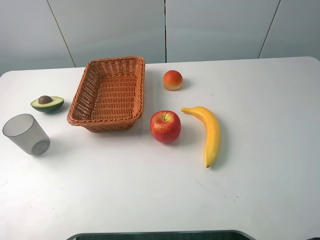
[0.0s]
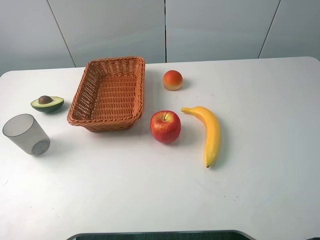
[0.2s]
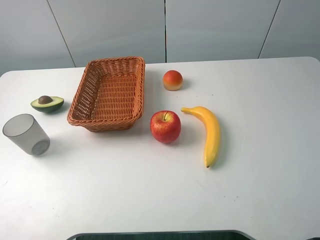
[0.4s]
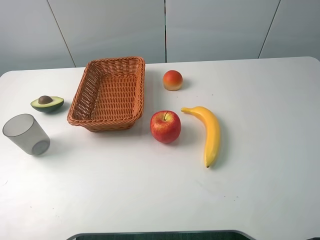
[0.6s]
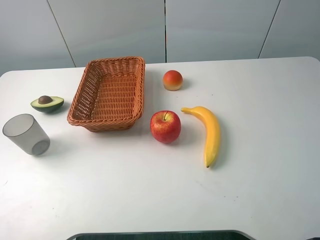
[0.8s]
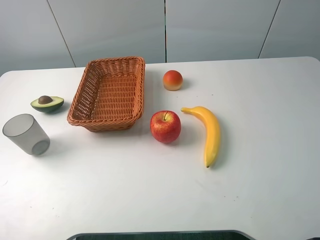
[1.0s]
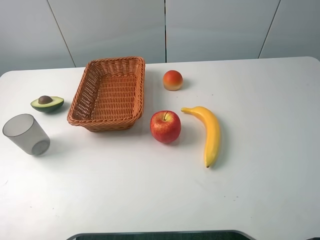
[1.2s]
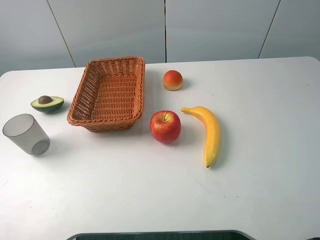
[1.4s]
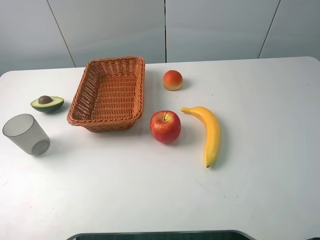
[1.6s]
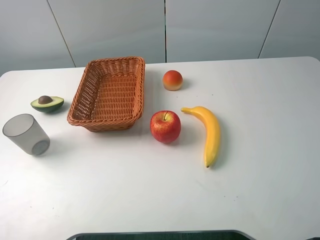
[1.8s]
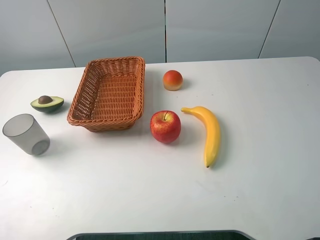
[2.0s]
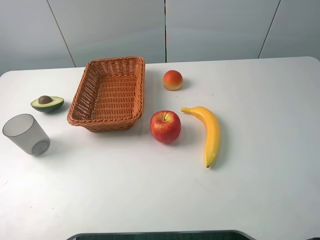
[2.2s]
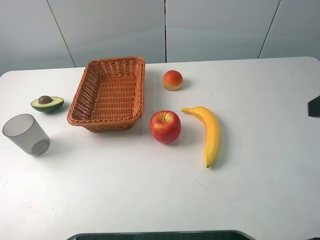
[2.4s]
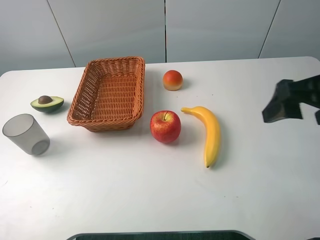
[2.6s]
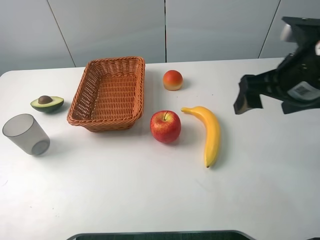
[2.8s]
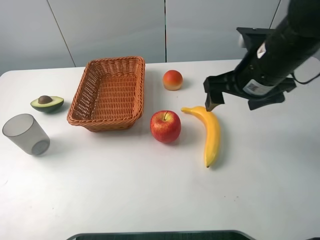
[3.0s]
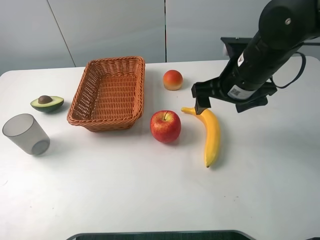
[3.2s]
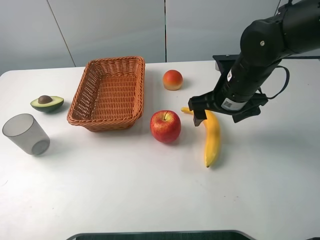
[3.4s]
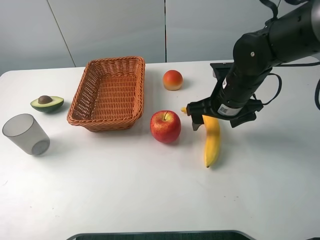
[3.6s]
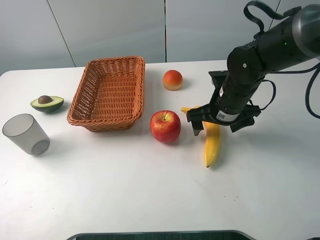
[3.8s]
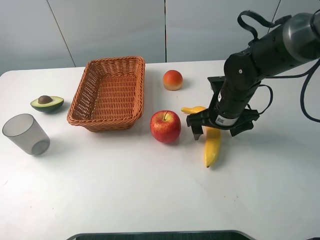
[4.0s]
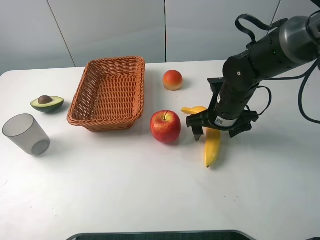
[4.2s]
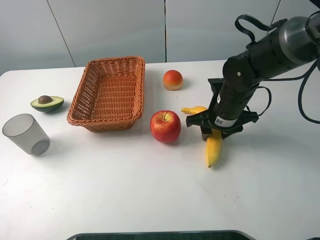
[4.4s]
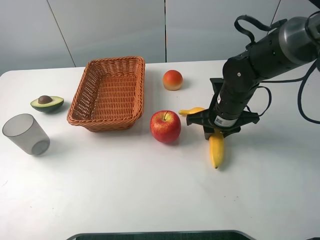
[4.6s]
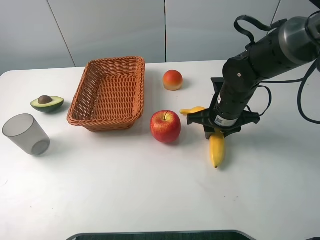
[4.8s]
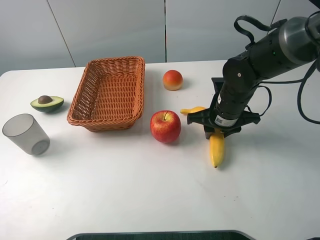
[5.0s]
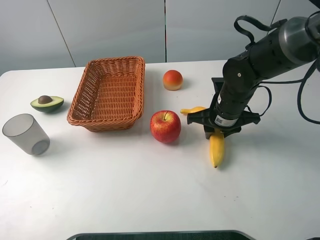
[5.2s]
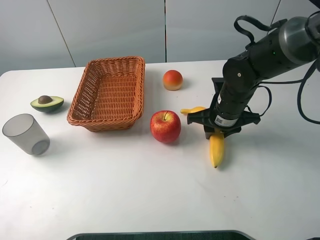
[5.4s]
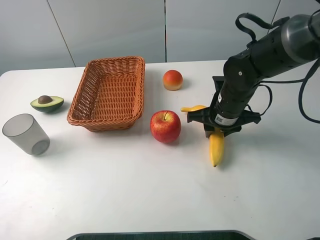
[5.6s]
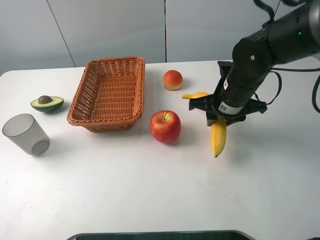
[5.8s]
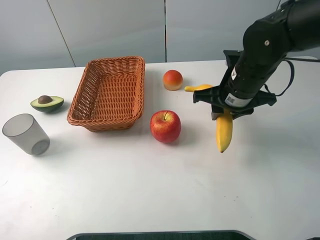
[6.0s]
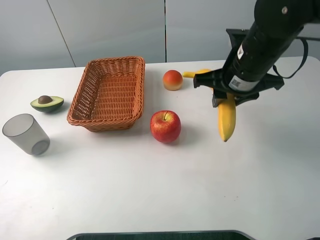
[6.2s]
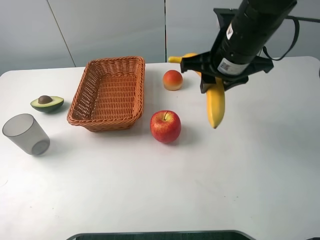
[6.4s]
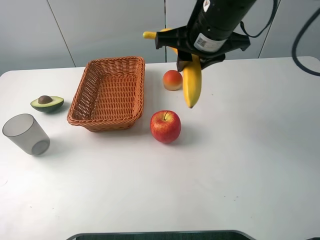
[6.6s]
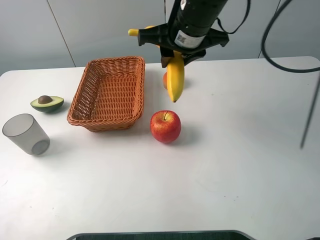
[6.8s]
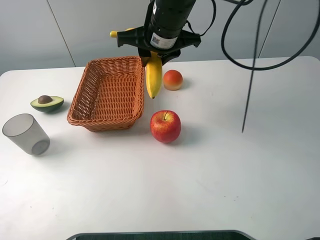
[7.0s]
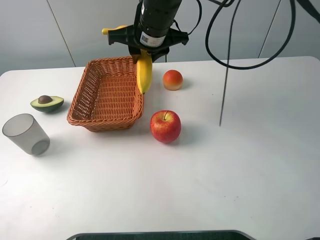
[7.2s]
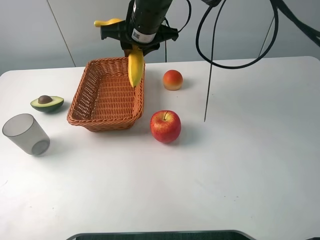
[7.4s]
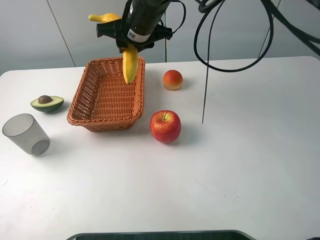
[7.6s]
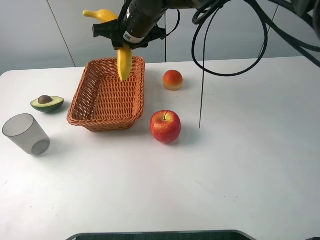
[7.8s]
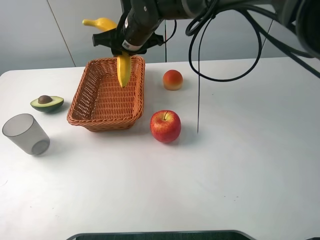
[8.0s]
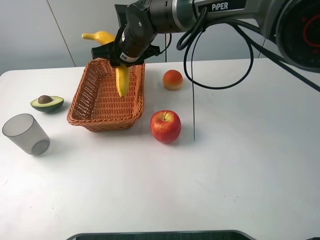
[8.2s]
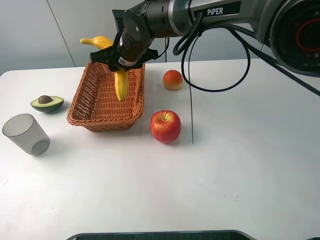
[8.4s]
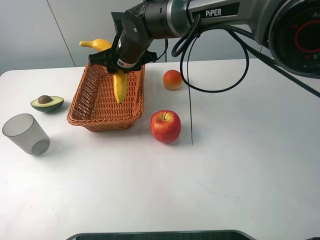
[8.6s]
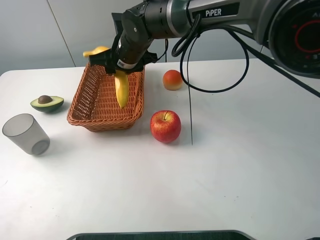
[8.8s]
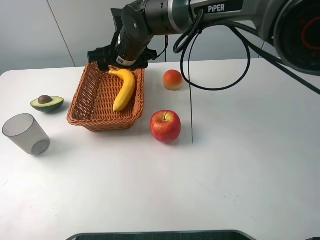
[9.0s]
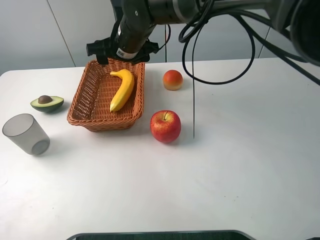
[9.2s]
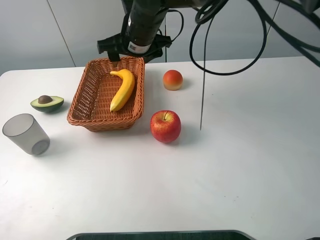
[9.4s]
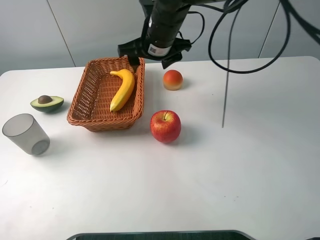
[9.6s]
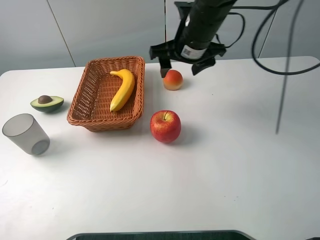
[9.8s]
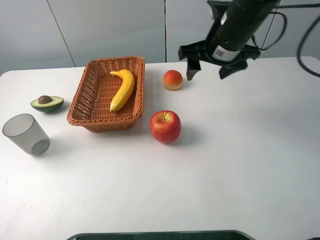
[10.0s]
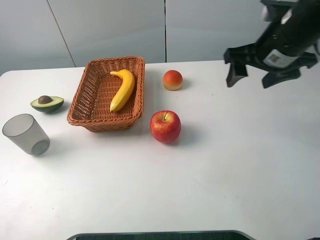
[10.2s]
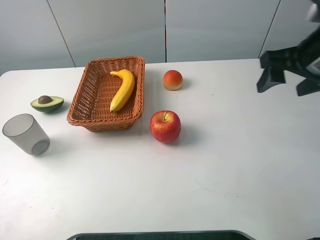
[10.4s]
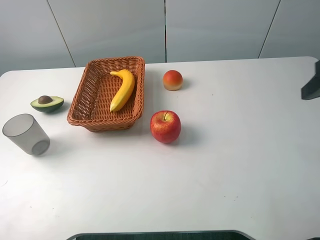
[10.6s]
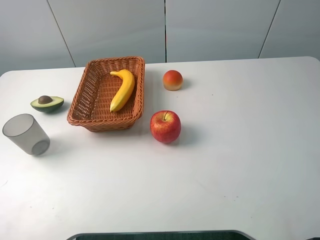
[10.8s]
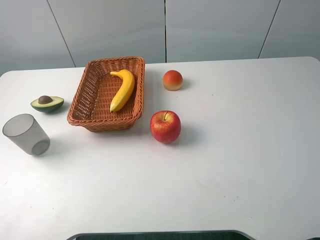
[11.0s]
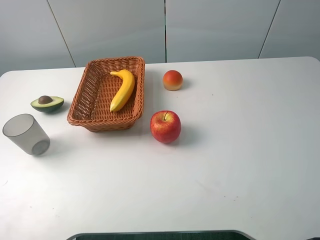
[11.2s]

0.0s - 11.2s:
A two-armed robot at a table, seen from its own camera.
1.6s - 3.2s: The right gripper moves forward and to the left, some 30 cm.
3.2s - 4.8s: The right gripper heads downward, covering about 10 cm, and closes.
4.8s - 6.4s: The right gripper travels upward by approximately 15 cm.
6.4s - 8.0s: The right gripper moves to the left and forward, some 20 cm.
8.0s - 9.6s: The right gripper is displaced to the right by roughly 5 cm, and opens up.
9.6s - 11.2s: The right gripper goes roughly 40 cm backward and to the right.

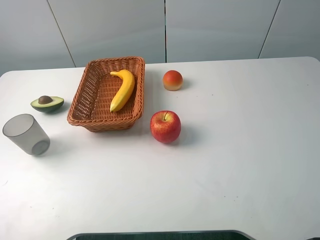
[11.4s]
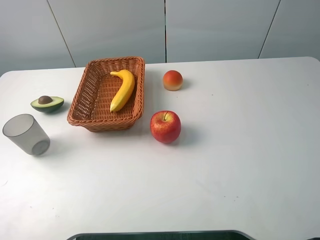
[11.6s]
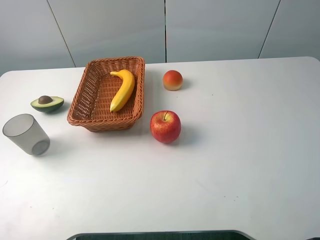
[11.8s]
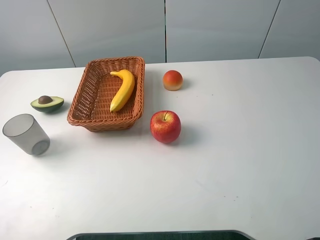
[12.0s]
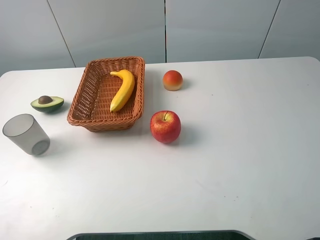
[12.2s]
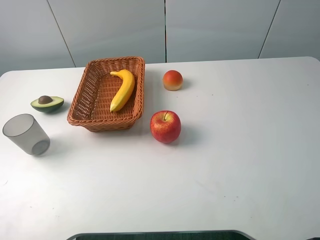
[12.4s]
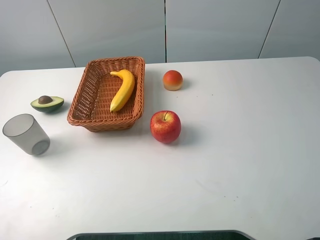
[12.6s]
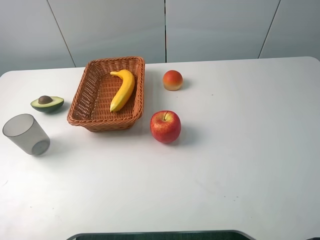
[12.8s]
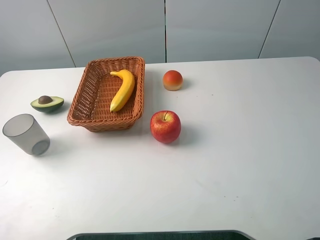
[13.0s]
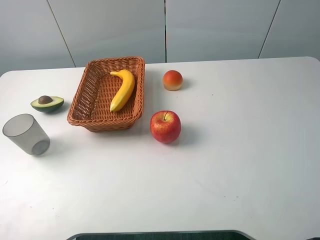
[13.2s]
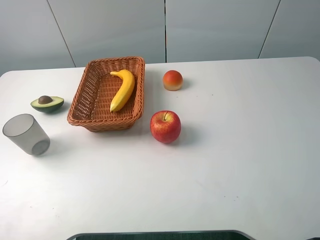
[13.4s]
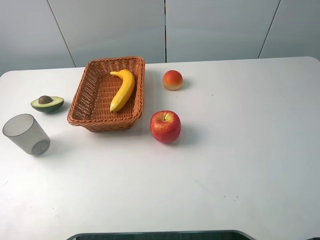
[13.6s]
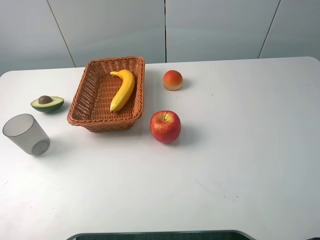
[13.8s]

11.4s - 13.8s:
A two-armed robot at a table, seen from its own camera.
12.6s - 13.8s: Both grippers stay about where they are.
